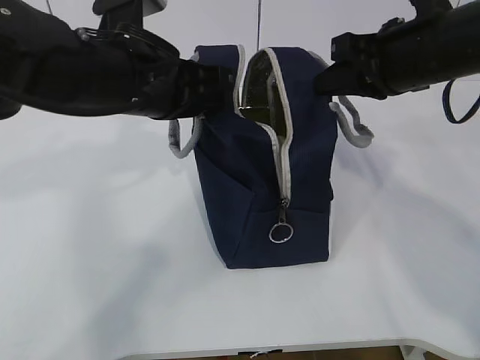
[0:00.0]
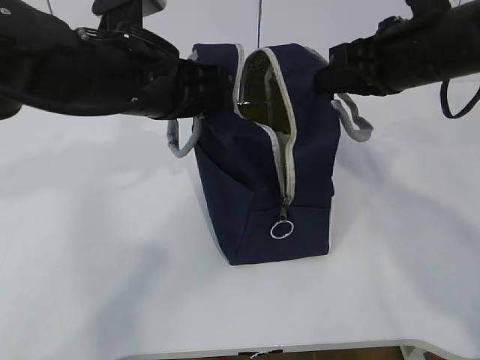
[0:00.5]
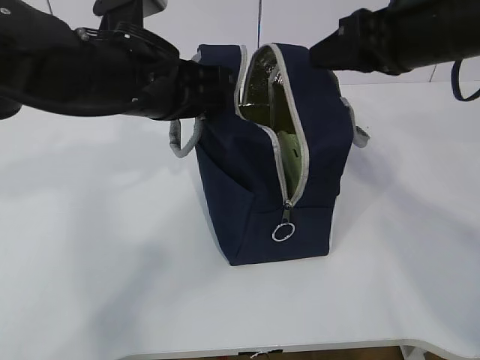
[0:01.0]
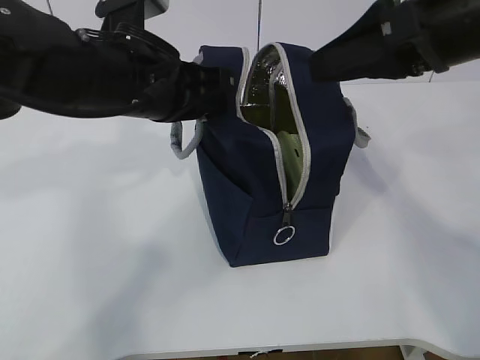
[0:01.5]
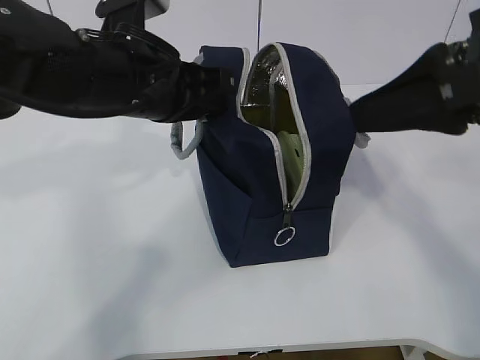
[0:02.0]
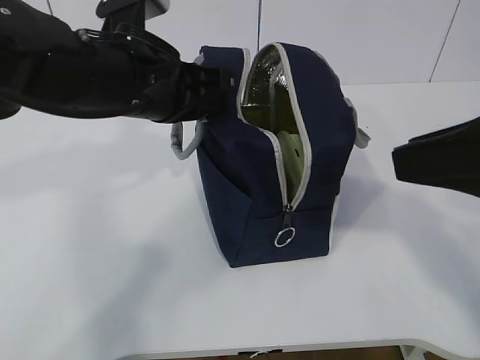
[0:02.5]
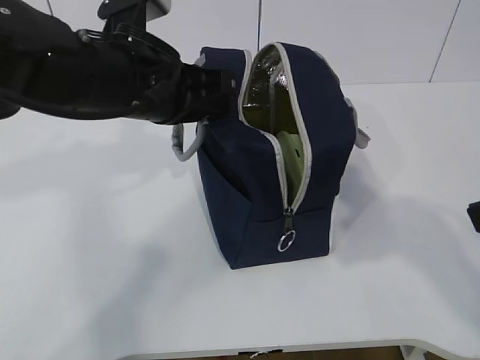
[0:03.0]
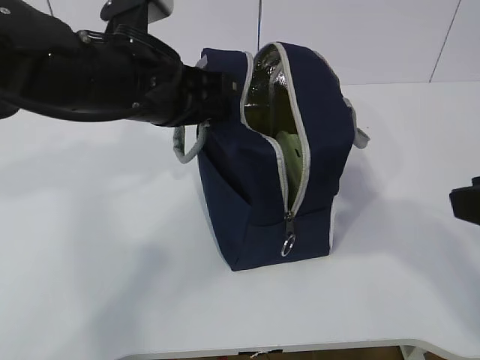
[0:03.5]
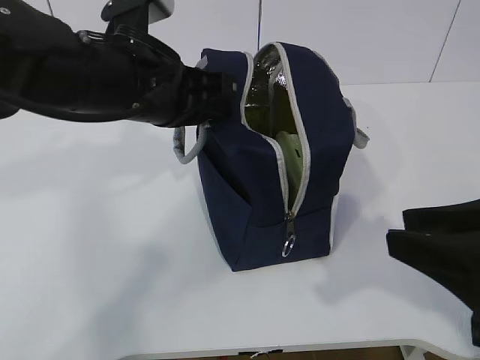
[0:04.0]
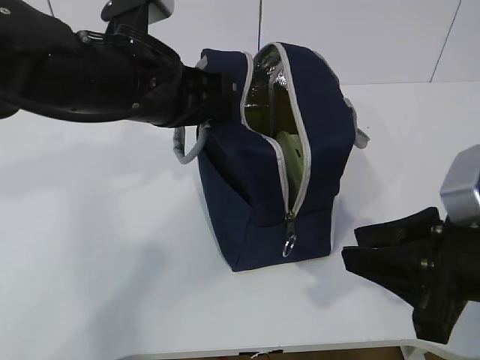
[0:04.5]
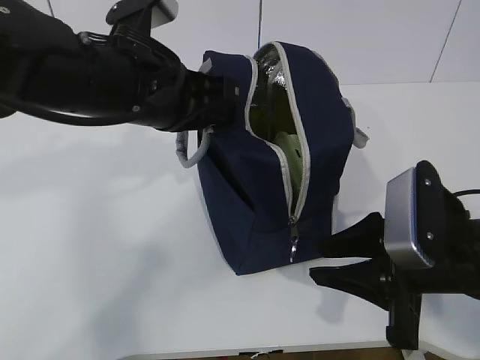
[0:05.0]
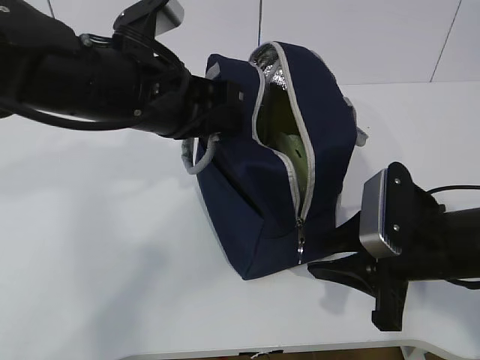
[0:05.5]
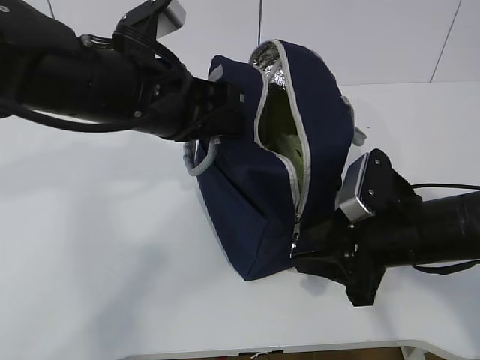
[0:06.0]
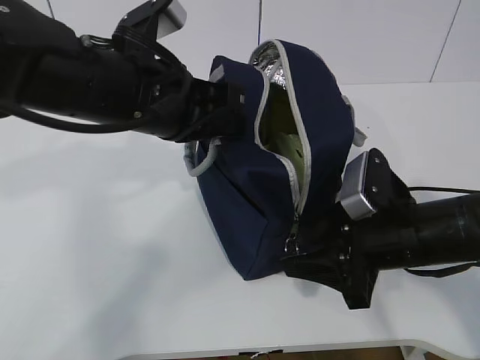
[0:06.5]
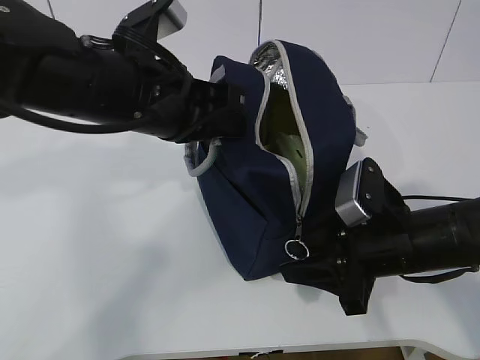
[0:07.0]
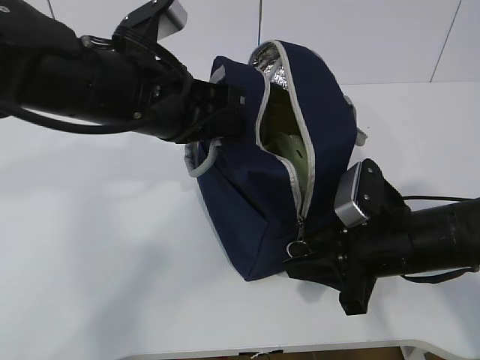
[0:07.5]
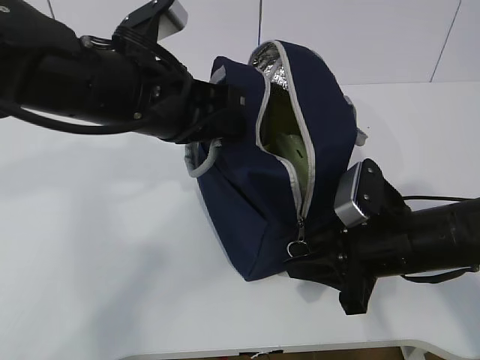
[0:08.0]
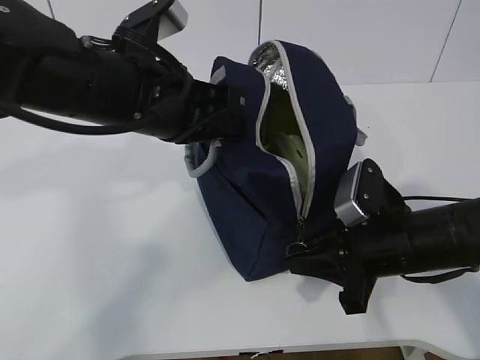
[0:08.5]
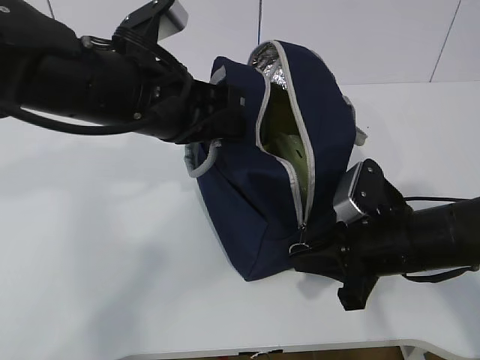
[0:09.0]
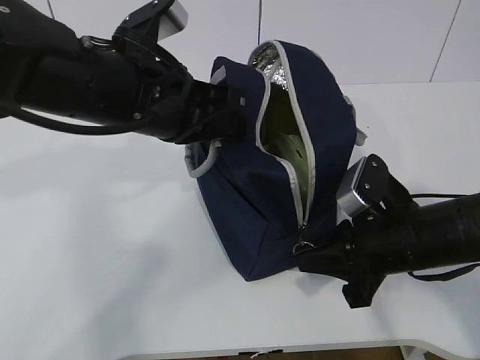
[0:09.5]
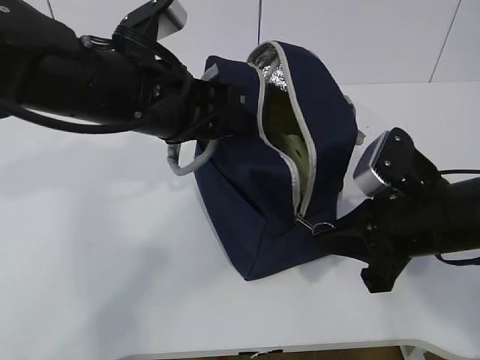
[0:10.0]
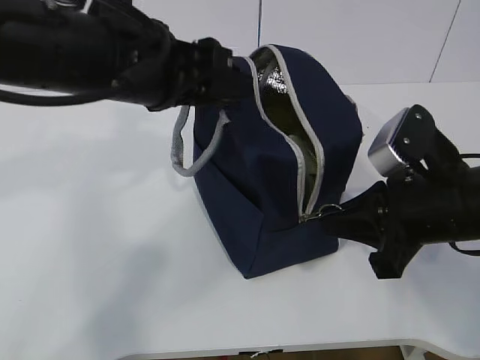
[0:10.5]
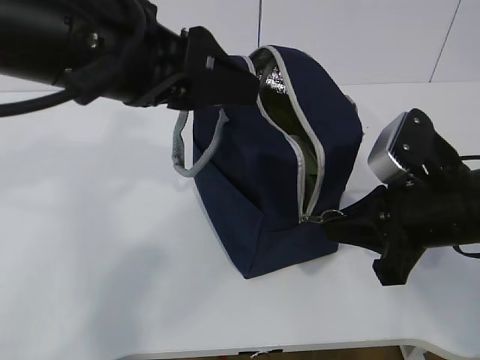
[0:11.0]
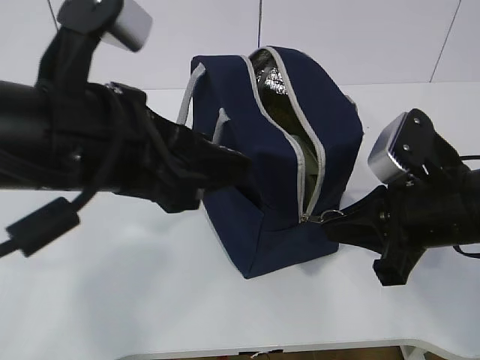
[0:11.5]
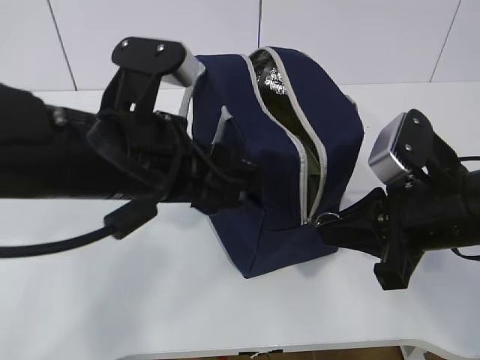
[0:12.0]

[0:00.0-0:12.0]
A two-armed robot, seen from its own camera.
Step, 0:00.0 to 0:10.0: Pull the zipper with your right hand.
0:00.0 to 0:02.0: The right gripper heads backward and upward, covering approximately 15 cm, and opens its fingers.
0:02.0 to 0:04.0: The right gripper goes approximately 15 cm downward and backward.
0:04.0 to 0:06.0: The right gripper travels forward and downward by about 15 cm.
0:06.0 to 0:08.0: The grippers move only a little.
0:08.0 to 0:10.0: The right gripper closes; the left gripper opens its fingers.
0:10.0 to 0:12.0: The left gripper is displaced backward by about 5 cm.

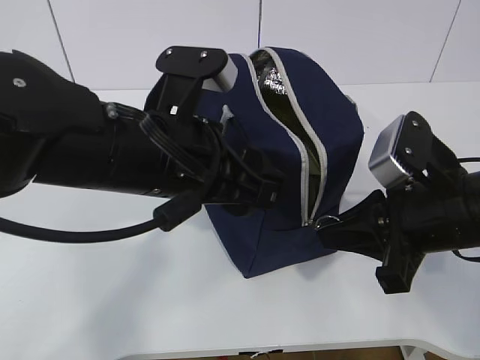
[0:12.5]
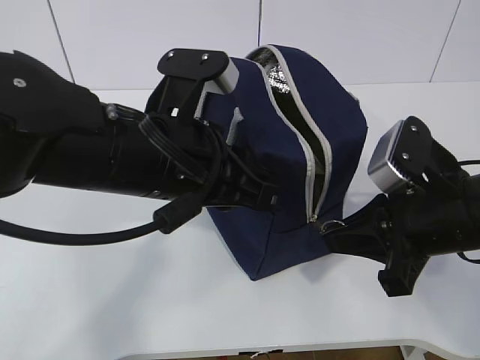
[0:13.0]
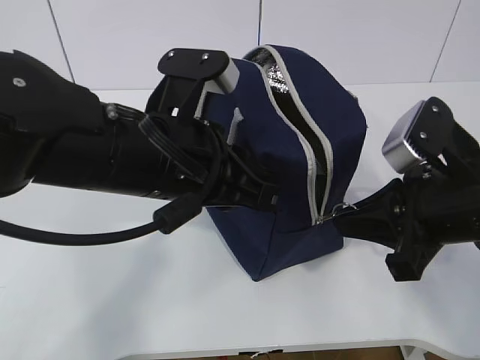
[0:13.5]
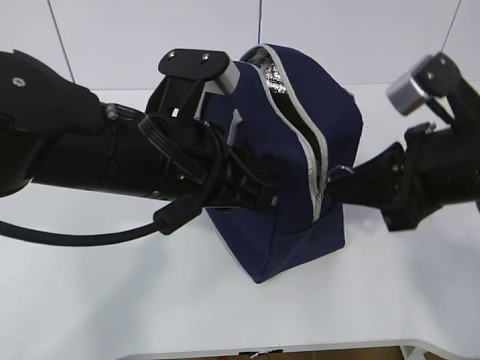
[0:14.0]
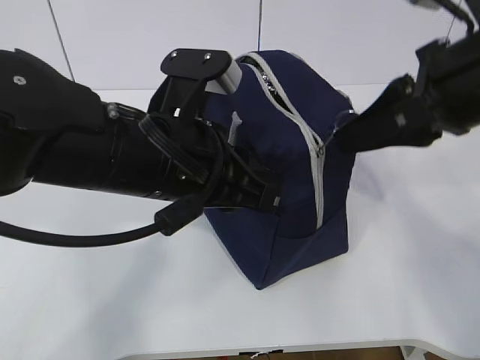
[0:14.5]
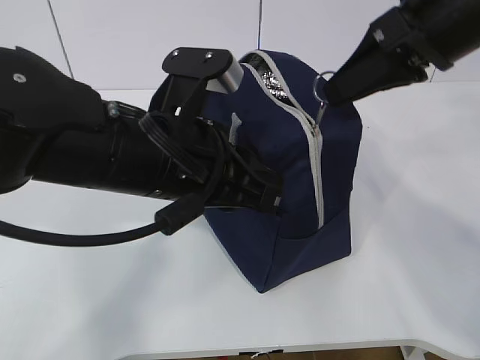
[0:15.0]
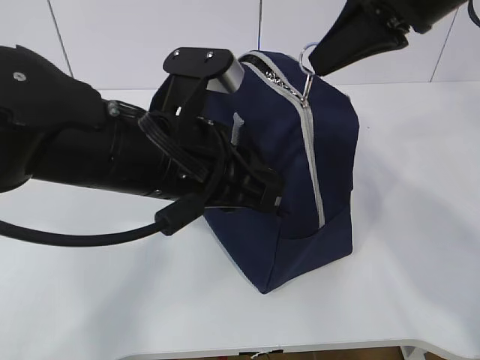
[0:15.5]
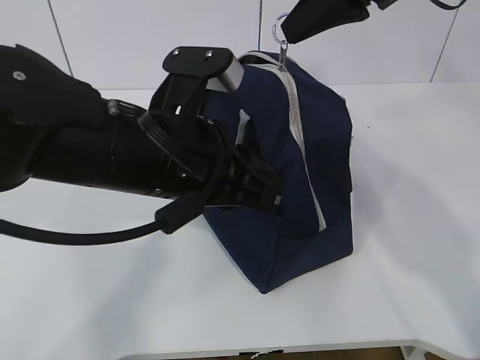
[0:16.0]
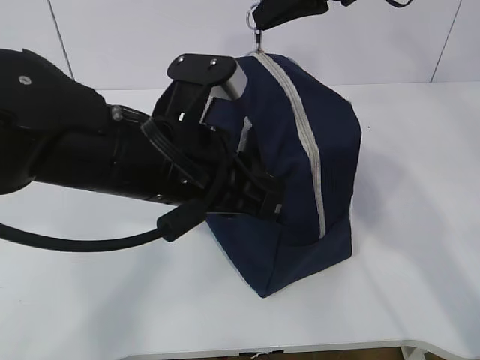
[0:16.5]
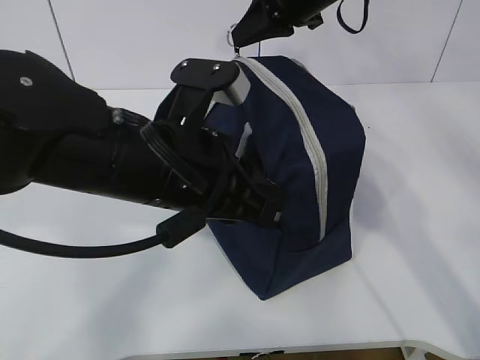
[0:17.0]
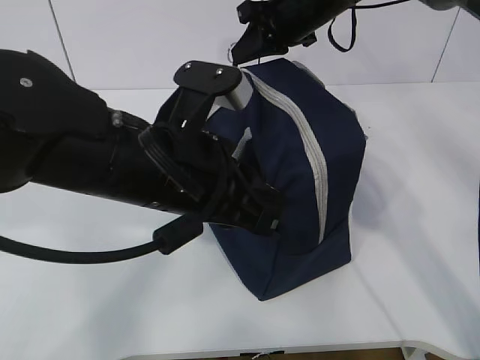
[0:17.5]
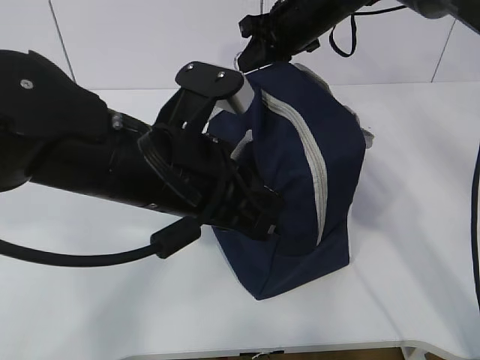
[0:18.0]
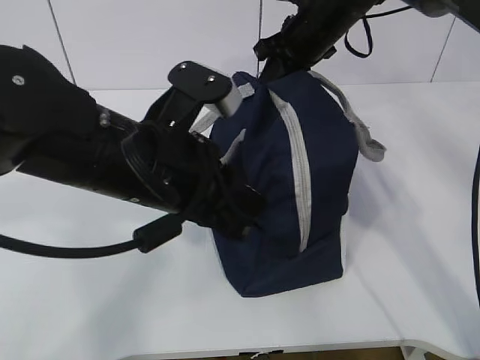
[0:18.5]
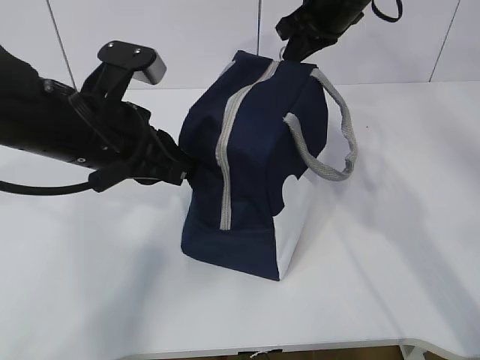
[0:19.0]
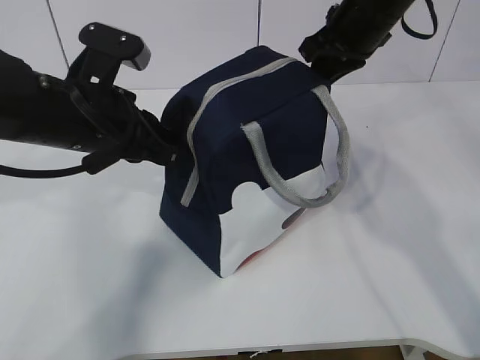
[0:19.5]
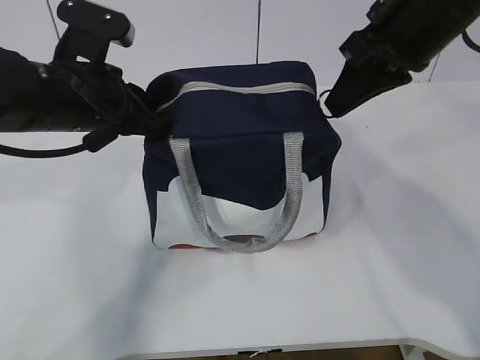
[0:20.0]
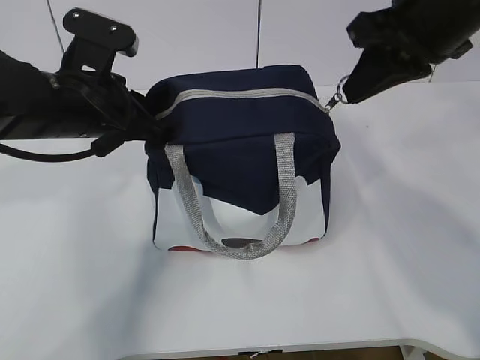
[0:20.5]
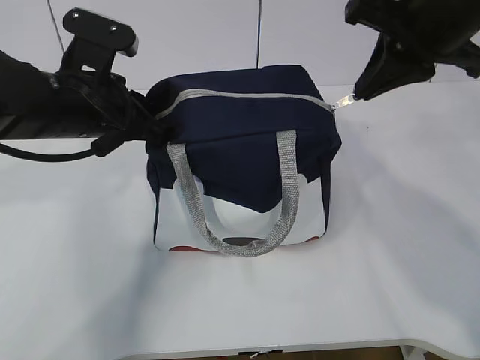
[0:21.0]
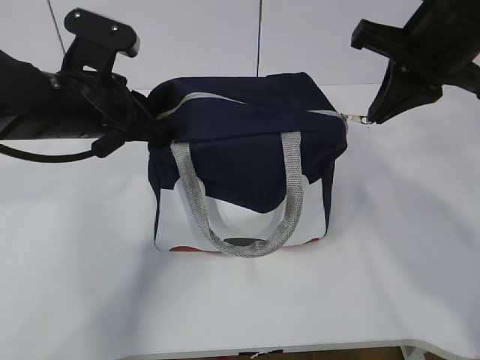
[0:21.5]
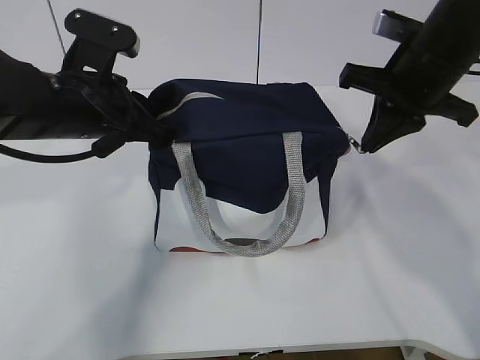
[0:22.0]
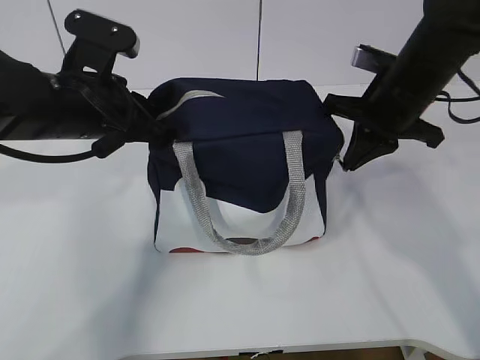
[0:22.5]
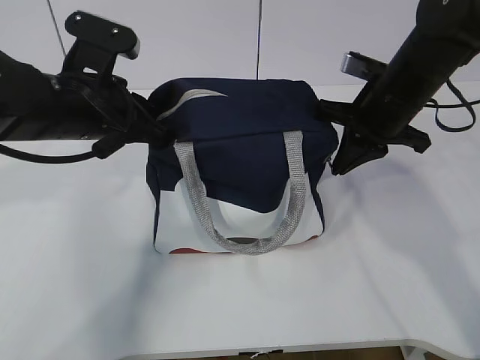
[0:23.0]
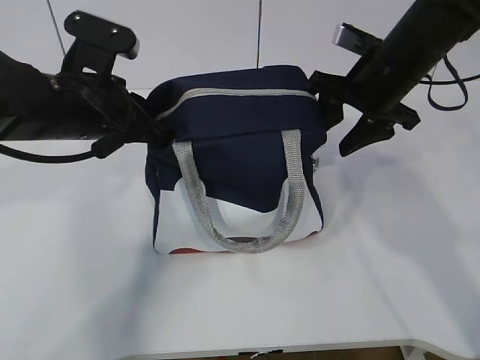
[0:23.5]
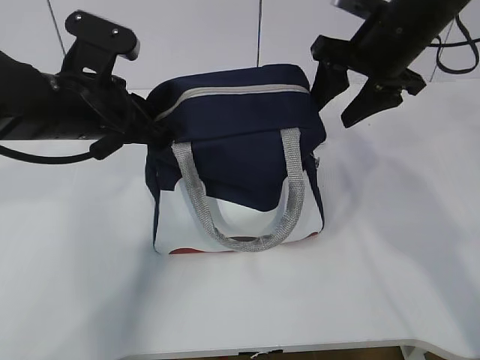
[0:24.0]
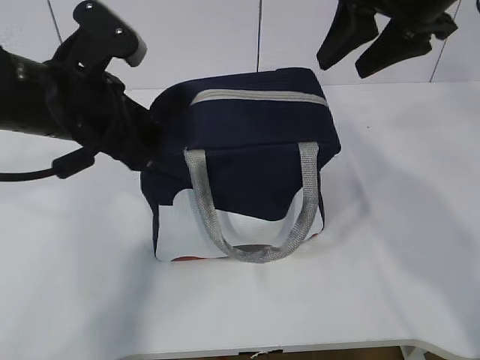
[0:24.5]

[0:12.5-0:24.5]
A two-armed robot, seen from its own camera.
0:12.5 to 0:14.5: The left gripper closes. The right gripper moves upward, approximately 10 cm.
0:14.5 to 0:16.5: The right gripper heads forward, covering about 15 cm.
0:16.5 to 0:18.5: The right gripper goes approximately 15 cm downward and forward.
0:18.5 to 0:20.5: The left gripper travels forward and to the left by roughly 10 cm. The right gripper heads backward and upward, covering roughly 20 cm.
0:20.5 to 0:22.5: The right gripper moves downward and forward, approximately 15 cm.
0:22.5 to 0:24.5: The right gripper is displaced upward by roughly 10 cm, and opens its fingers, while the left gripper opens up.

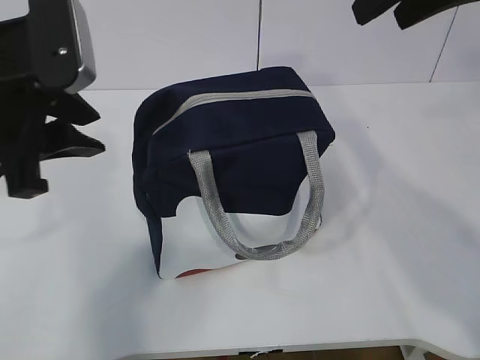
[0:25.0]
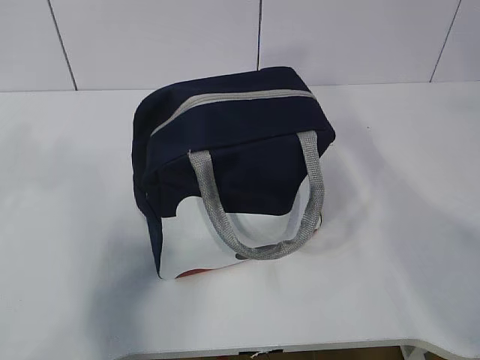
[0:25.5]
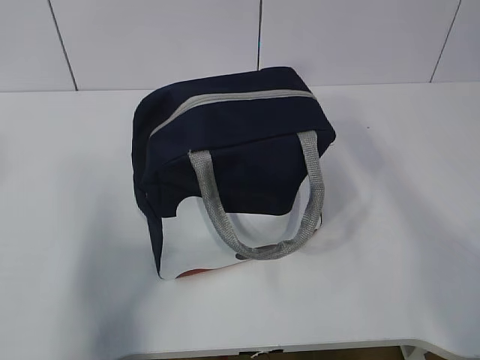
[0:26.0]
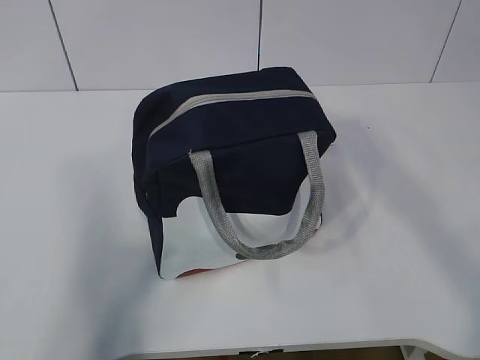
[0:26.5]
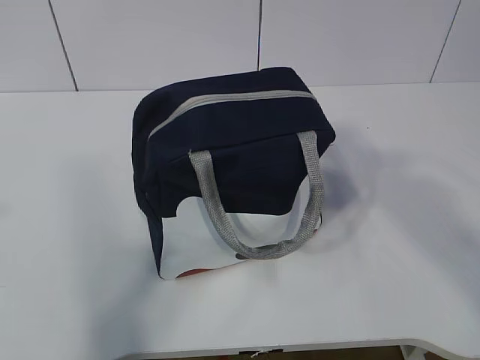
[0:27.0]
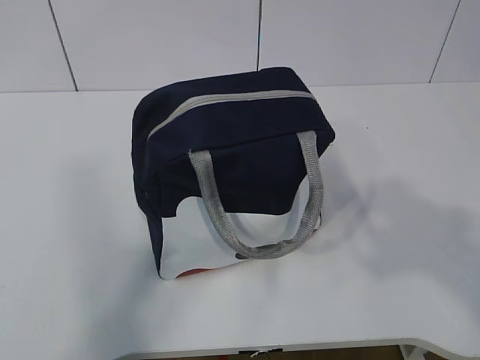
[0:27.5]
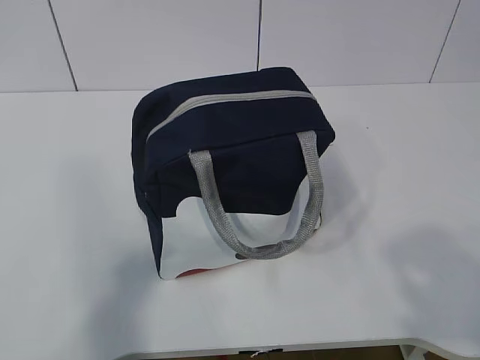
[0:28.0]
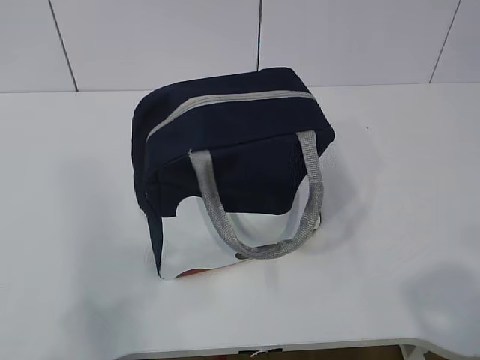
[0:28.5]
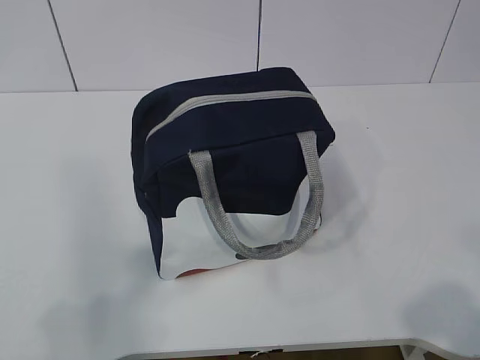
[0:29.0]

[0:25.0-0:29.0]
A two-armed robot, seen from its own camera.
0:25.0 to 0:27.0: The right gripper goes roughly 25 cm backward. The left gripper is displaced backward, upward and to the left by some 25 cm.
0:27.0 to 0:29.0: The left gripper travels downward and backward by roughly 15 cm; the right gripper is displaced downward and backward by roughly 25 cm.
